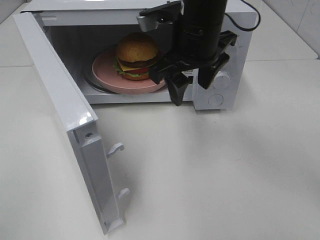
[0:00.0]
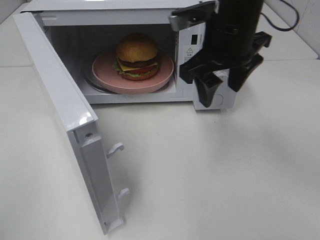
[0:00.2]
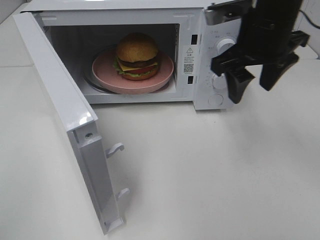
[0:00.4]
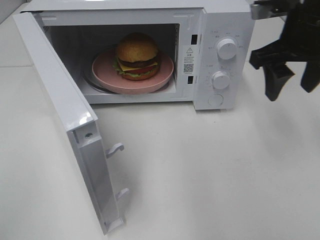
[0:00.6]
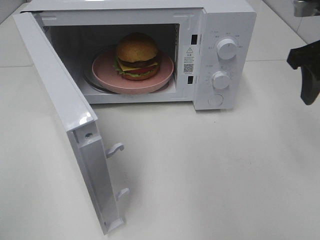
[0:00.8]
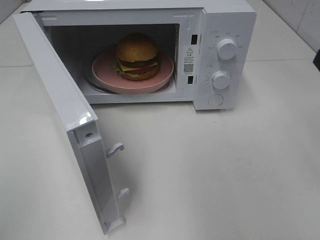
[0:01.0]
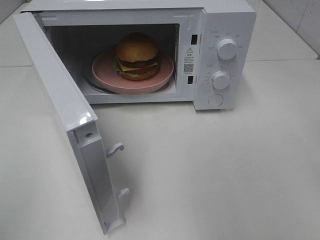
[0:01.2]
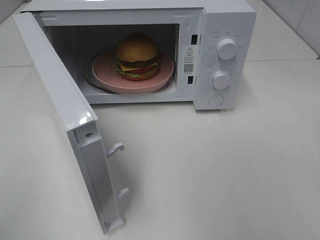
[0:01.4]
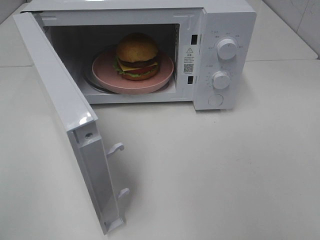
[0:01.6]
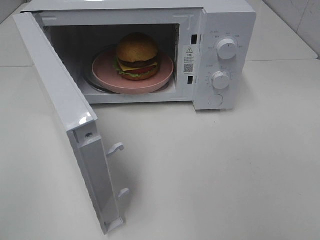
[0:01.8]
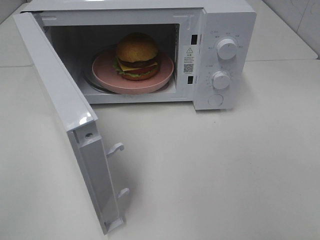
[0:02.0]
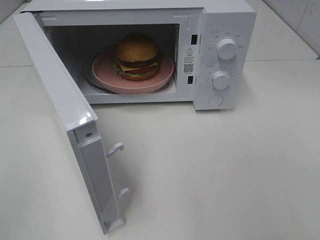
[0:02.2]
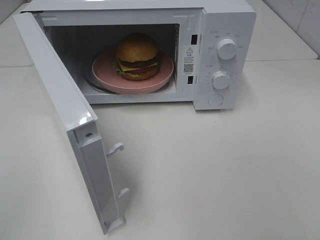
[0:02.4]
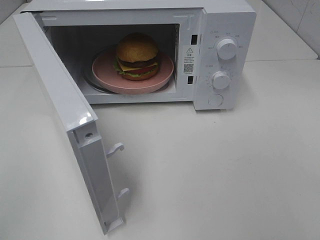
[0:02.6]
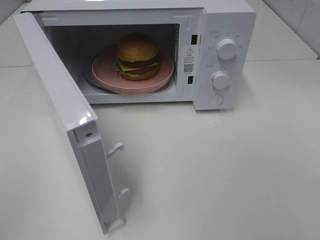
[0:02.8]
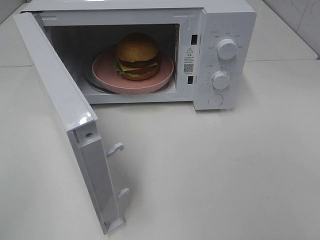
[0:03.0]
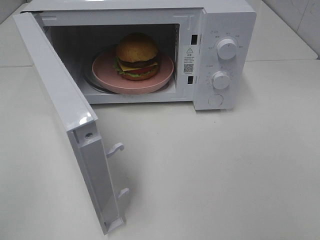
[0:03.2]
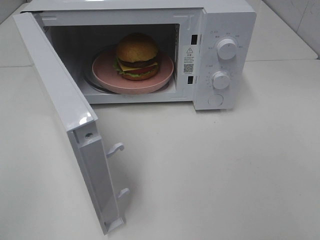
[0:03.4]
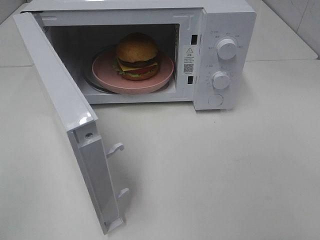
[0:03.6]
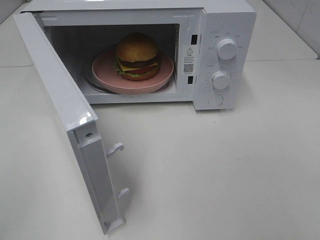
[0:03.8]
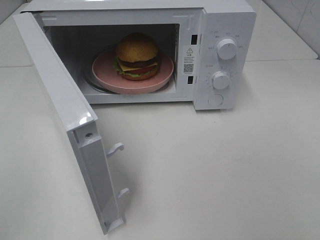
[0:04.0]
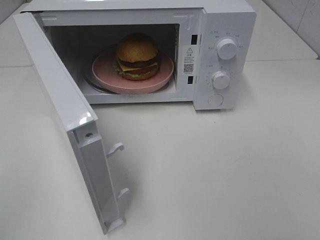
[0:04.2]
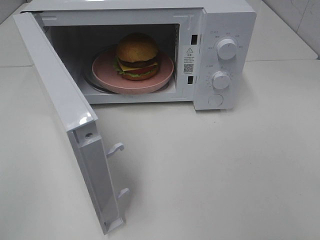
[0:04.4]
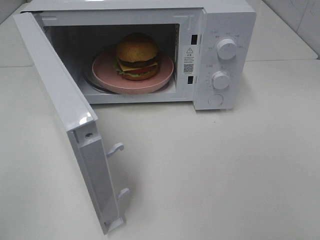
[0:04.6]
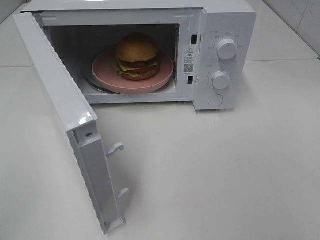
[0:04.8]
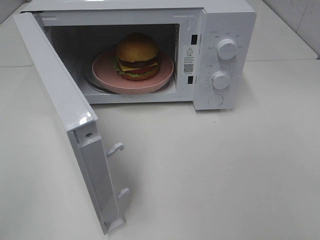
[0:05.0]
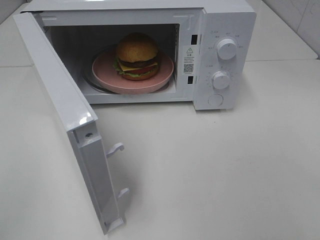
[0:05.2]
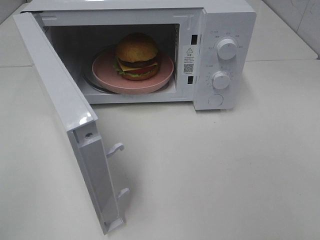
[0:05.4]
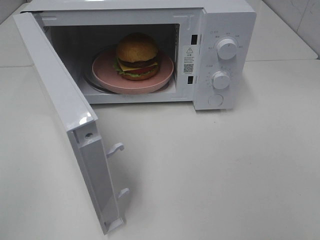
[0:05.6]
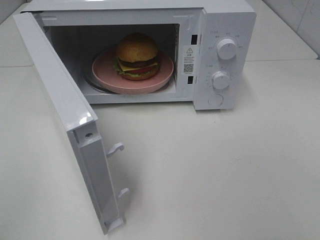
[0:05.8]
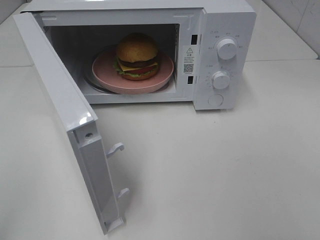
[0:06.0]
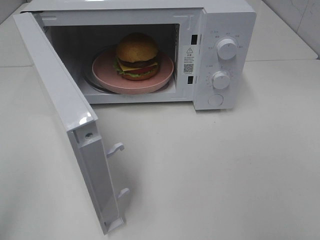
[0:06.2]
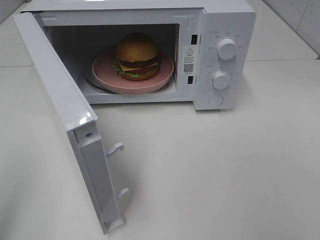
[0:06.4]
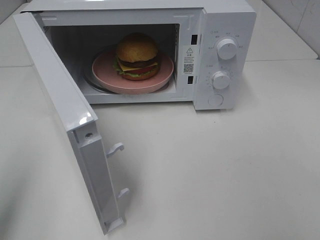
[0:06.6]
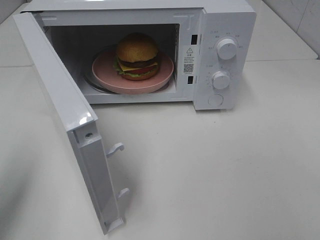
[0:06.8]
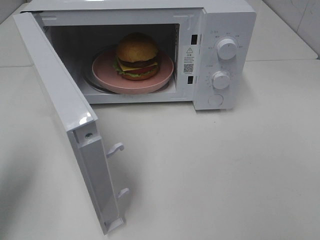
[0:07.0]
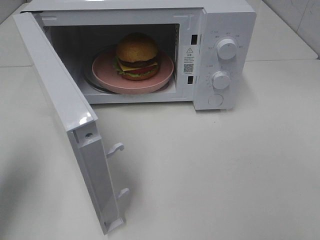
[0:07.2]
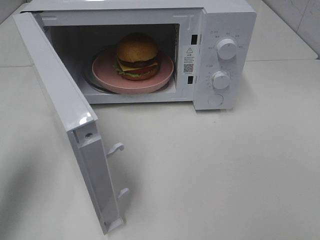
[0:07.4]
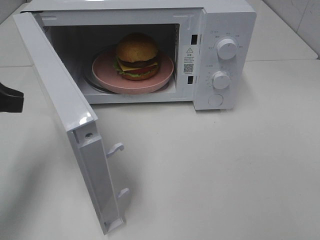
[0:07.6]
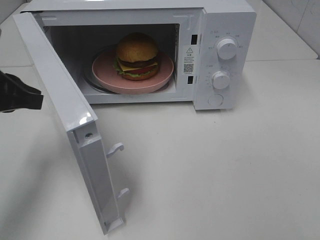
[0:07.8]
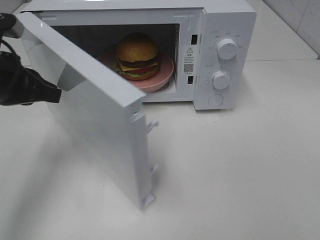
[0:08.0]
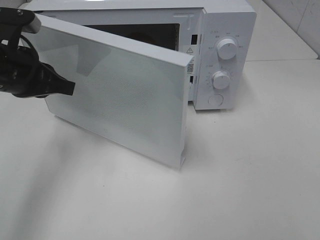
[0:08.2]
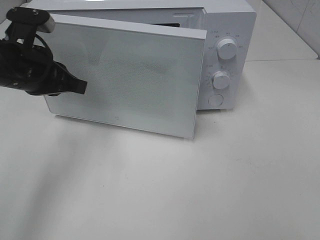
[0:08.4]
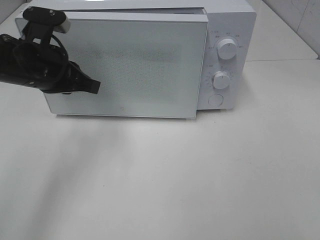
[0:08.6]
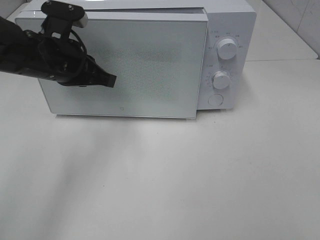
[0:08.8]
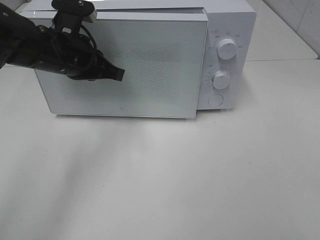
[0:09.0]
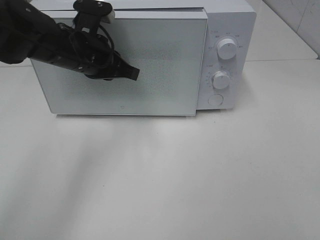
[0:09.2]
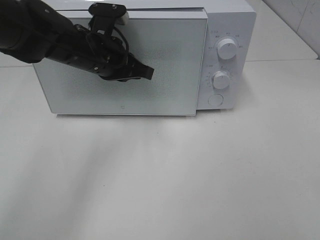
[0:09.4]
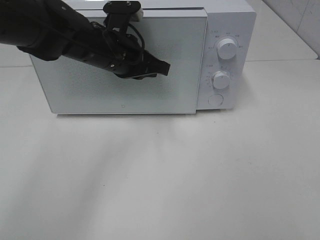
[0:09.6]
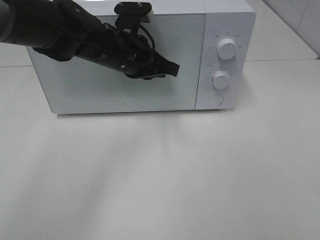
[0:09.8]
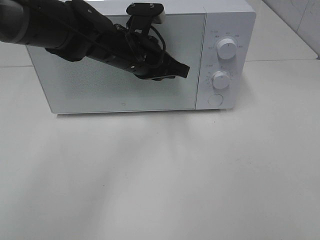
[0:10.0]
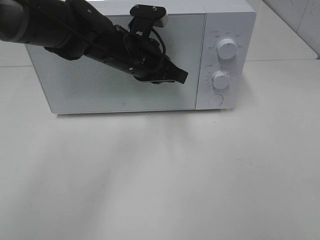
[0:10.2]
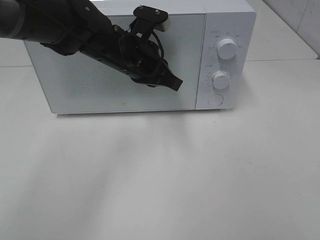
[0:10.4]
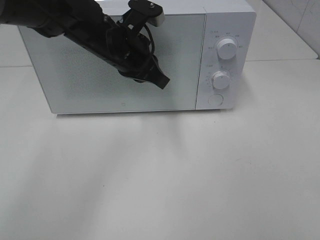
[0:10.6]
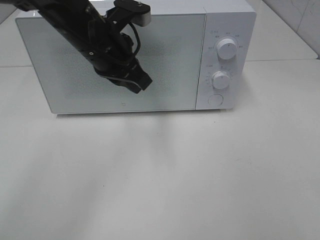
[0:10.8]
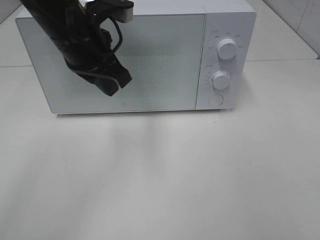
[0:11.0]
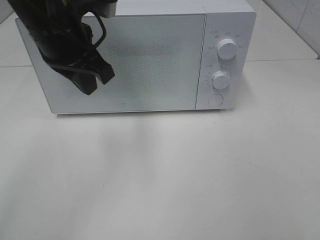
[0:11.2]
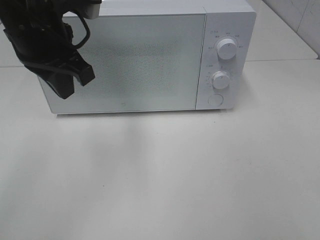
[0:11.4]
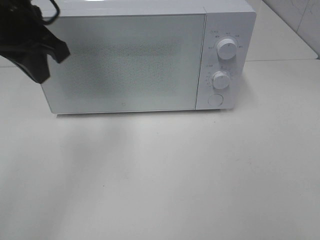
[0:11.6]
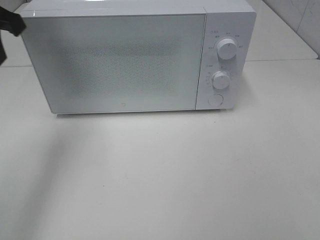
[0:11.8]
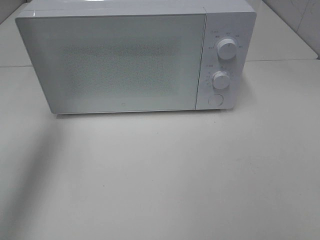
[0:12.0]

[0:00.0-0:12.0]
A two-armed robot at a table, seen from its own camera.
Task of the whole recording: Heat the burger.
Step, 0:00.0 to 0:10.0: Left hand: close the microwave door.
0:00.0 to 0:01.6: The right gripper travels to the right and backward by some 30 cm.
0:03.0 to 0:04.4: Both grippers stay about where they are.
0:06.0 to 0:07.6: The left gripper is displaced forward by roughly 25 cm.
0:07.6 to 0:09.0: The left gripper goes roughly 15 cm to the right and forward.
0:09.0 to 0:10.4: The left gripper heads to the right, covering about 10 cm.
0:10.4 to 0:12.0: The left gripper goes approximately 30 cm to the left and upward.

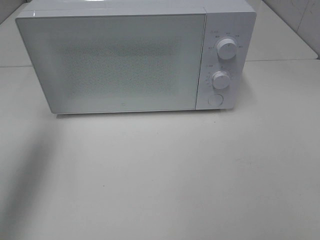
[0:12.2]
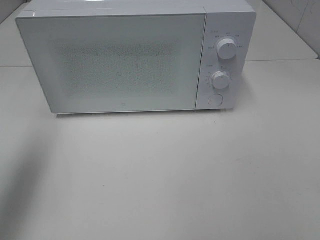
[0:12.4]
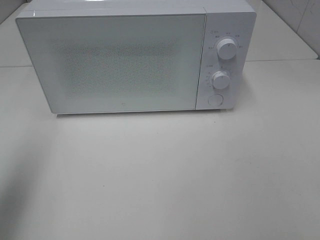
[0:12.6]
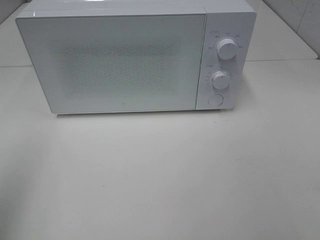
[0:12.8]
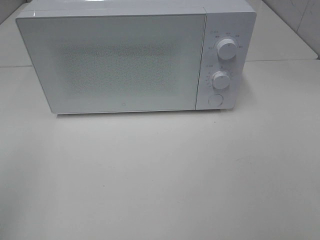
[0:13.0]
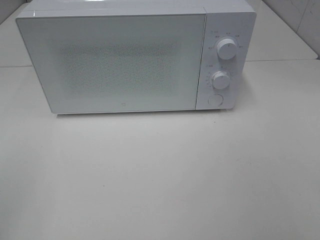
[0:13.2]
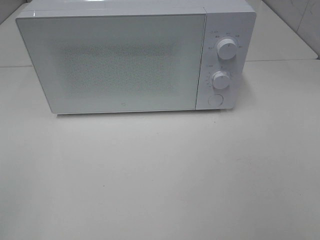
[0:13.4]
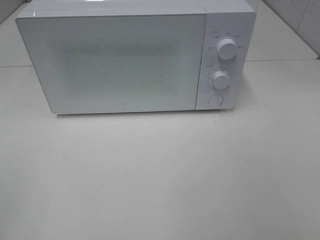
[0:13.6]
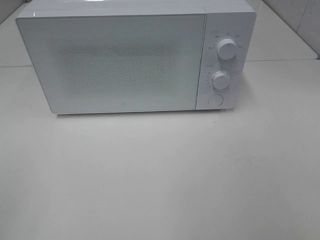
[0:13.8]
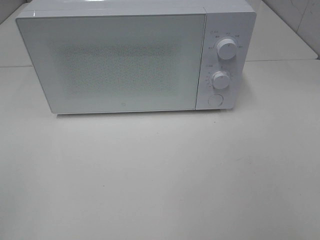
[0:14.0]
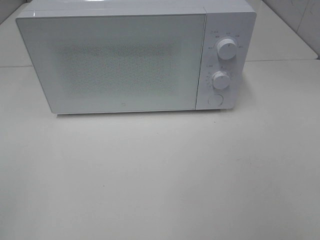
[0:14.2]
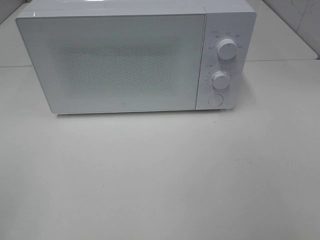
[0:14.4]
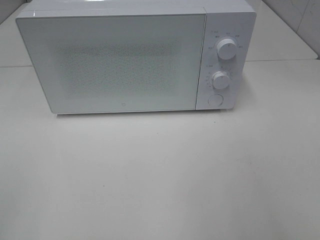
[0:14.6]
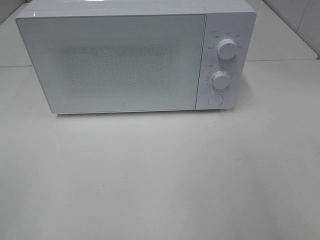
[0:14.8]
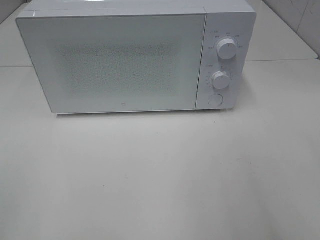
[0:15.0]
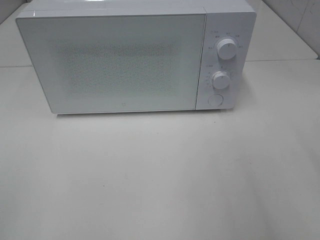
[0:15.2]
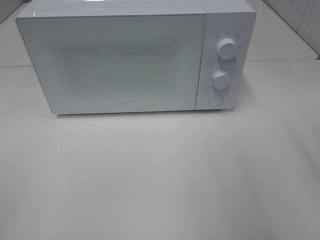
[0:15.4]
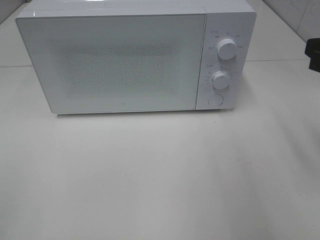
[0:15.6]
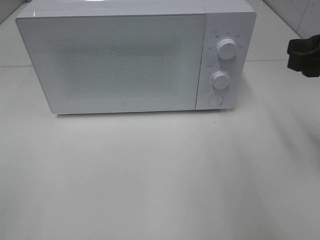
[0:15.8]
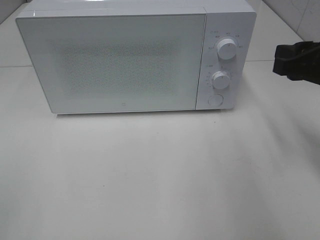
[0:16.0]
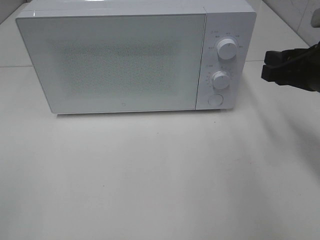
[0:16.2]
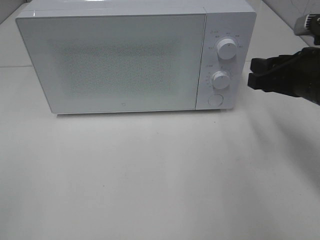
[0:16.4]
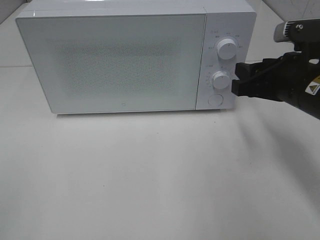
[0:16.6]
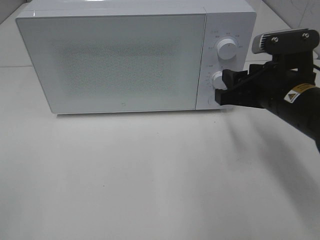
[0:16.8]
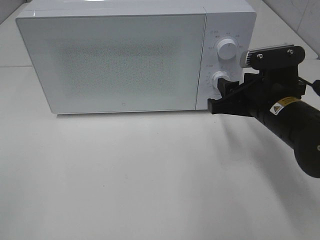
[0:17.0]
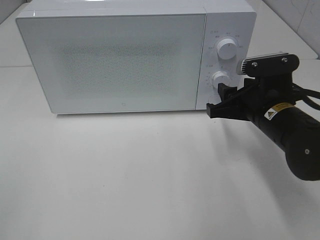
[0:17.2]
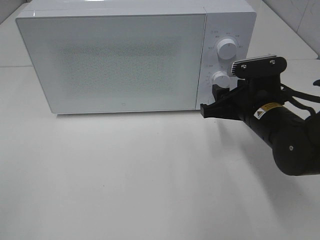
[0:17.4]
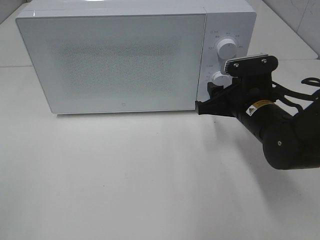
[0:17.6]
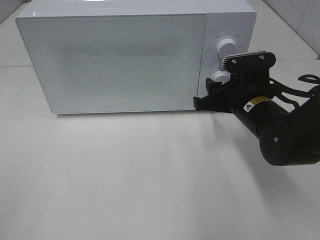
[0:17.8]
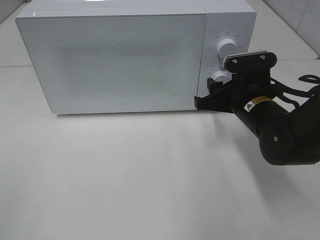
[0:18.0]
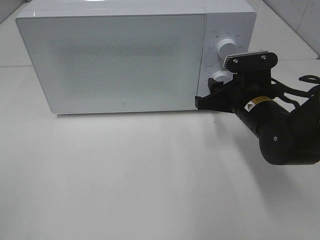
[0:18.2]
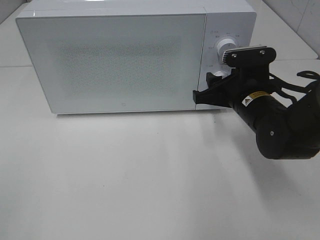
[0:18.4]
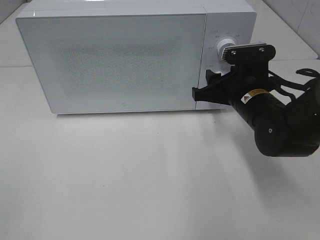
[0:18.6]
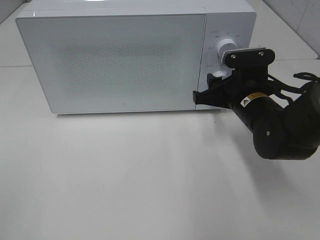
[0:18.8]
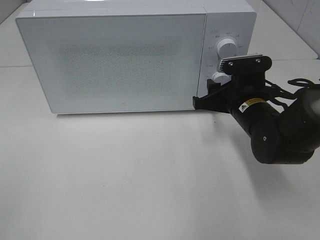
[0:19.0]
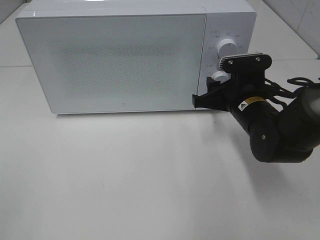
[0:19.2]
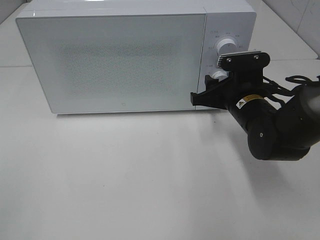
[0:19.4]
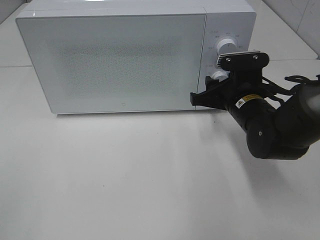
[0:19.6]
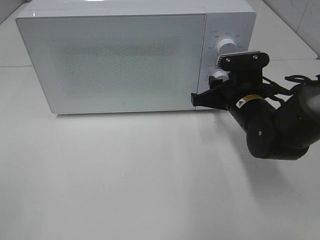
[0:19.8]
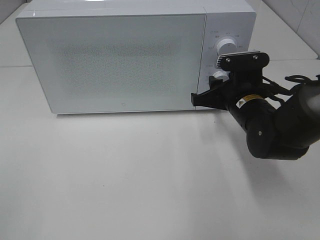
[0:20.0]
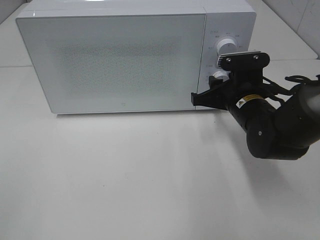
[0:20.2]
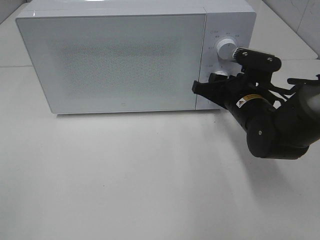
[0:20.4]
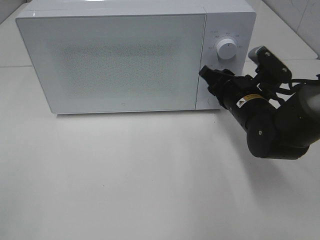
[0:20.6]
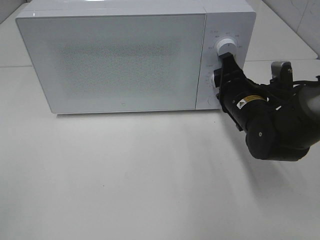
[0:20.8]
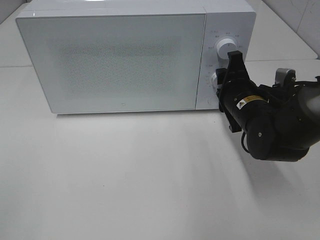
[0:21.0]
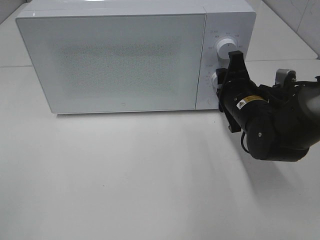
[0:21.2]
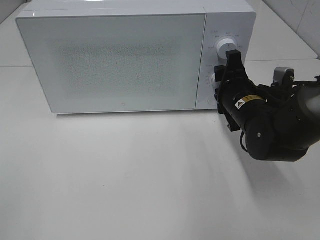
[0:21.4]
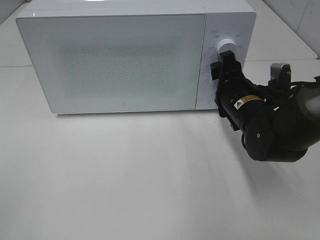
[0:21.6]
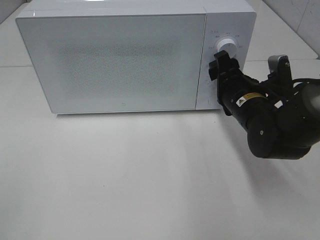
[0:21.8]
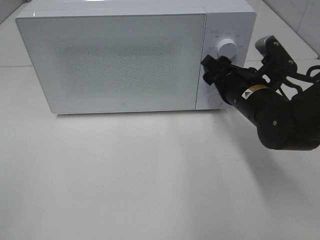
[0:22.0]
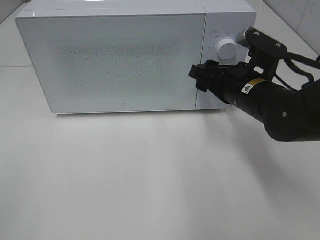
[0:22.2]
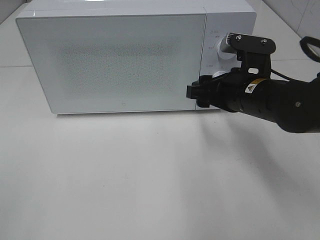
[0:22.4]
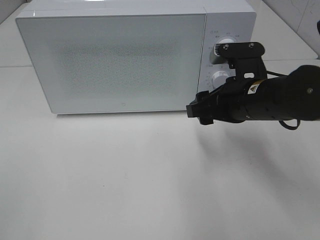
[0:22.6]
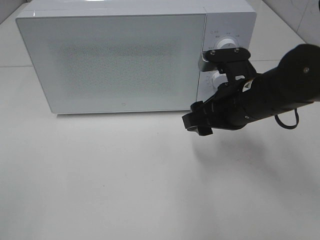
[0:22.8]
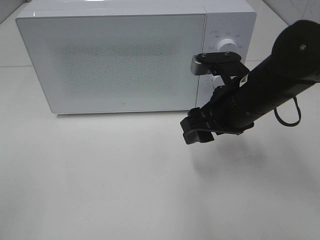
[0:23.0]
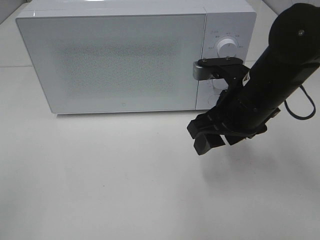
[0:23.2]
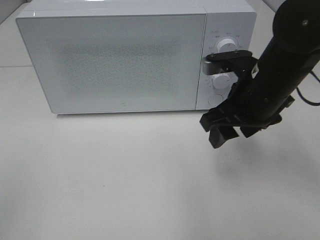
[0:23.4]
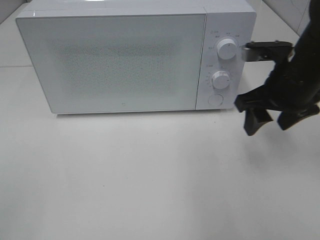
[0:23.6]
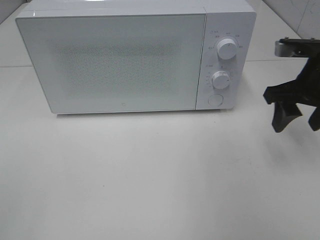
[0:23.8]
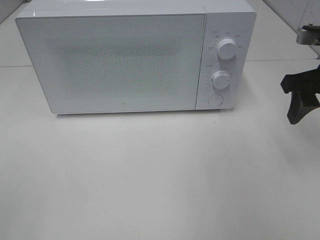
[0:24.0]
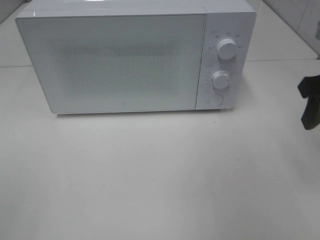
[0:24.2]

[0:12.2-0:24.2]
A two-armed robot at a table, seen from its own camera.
Task of the whole recording: Heat the burger.
Step, 0:12.2 to 0:21.4: Right hand: twist timer button.
0:12.2 to 0:13.8: The left gripper heads backward, covering some 25 cm.
0:15.2 to 0:16.6: The right gripper shifts about 20 cm forward, downward and to the left.
0:16.6 to 0:18.2: The right gripper travels downward by approximately 5 cm.
0:18.2 to 0:19.8: The grippers stay close to where they were, moving slightly.
0:21.2 to 0:22.6: The right gripper ends up approximately 5 cm from where it was, and opens.
0:22.6 to 0:24.2: The right gripper goes roughly 15 cm to the right and upward.
